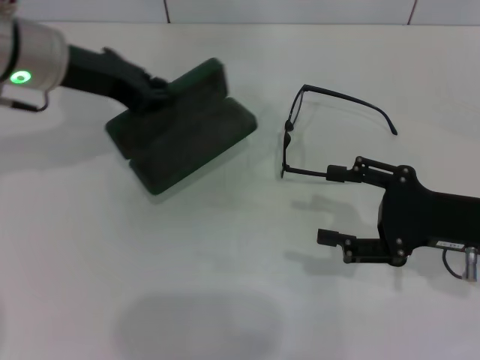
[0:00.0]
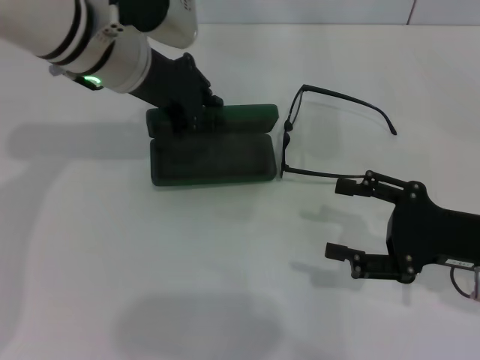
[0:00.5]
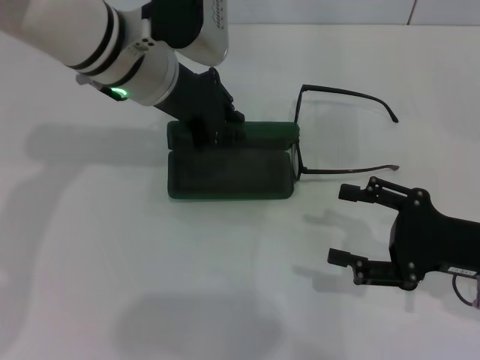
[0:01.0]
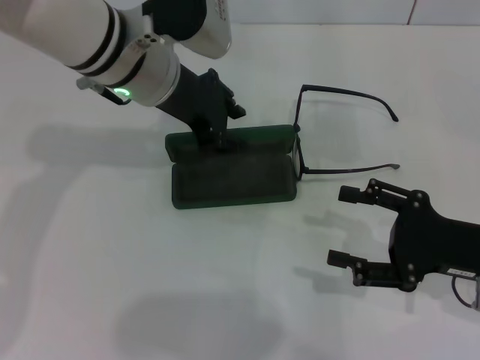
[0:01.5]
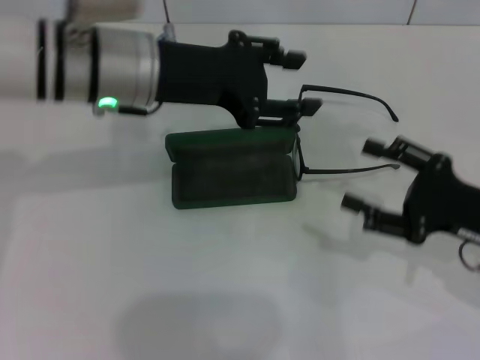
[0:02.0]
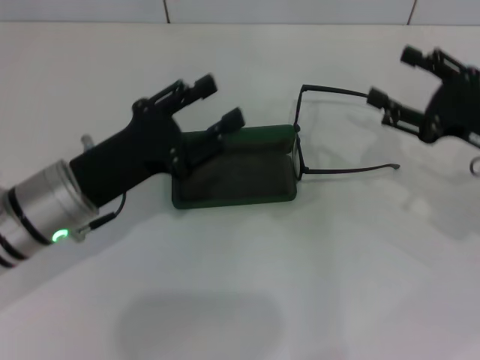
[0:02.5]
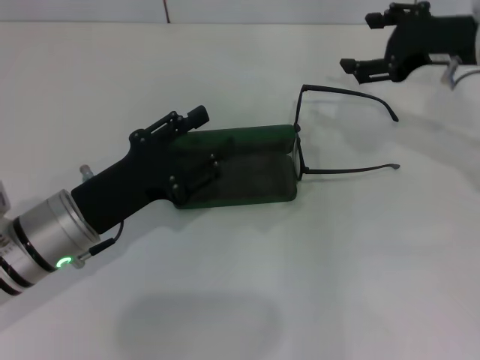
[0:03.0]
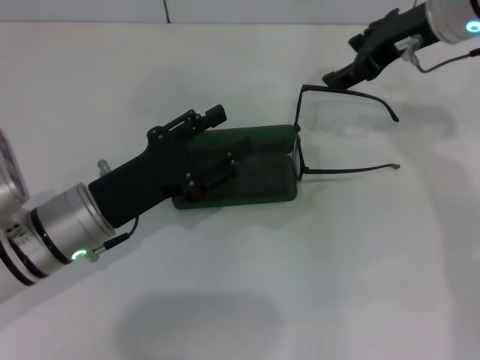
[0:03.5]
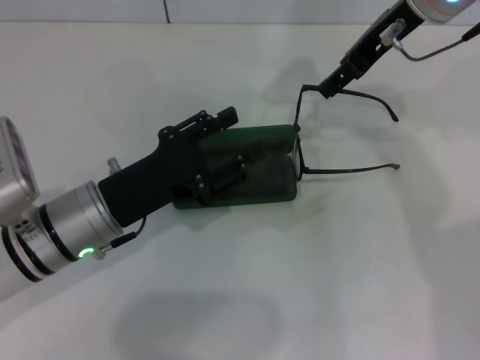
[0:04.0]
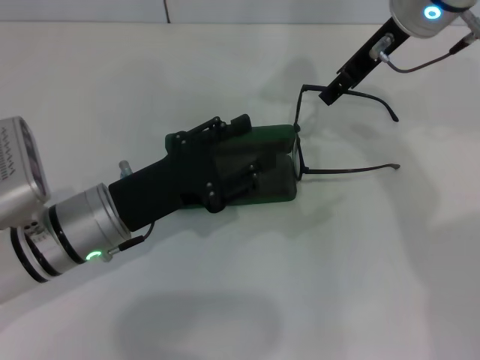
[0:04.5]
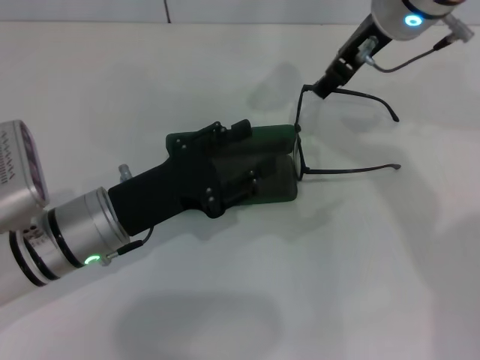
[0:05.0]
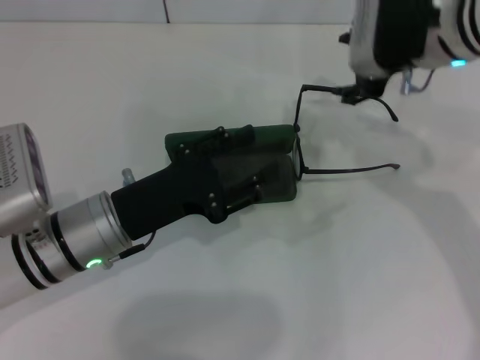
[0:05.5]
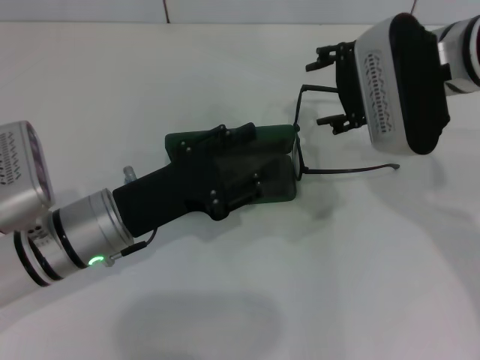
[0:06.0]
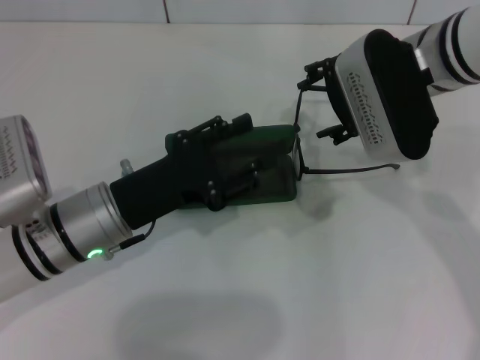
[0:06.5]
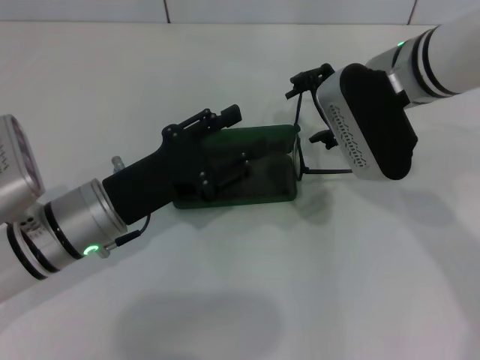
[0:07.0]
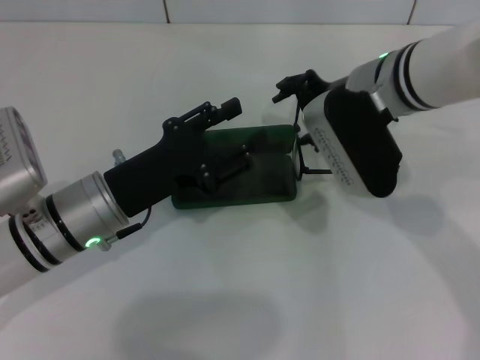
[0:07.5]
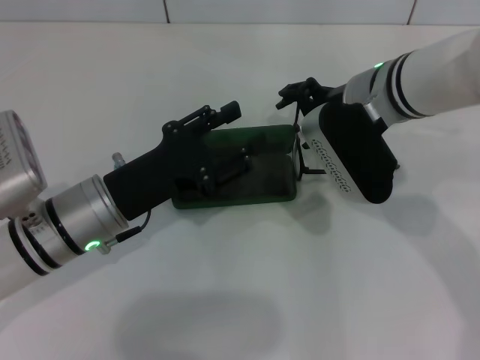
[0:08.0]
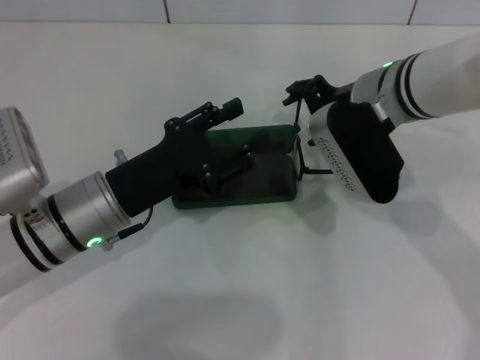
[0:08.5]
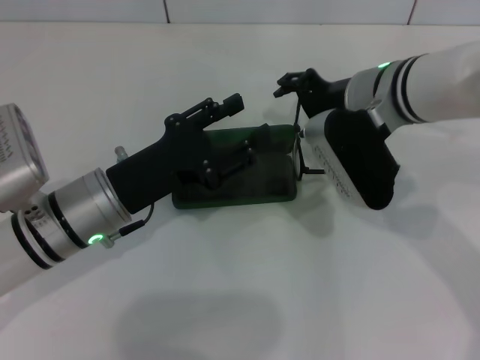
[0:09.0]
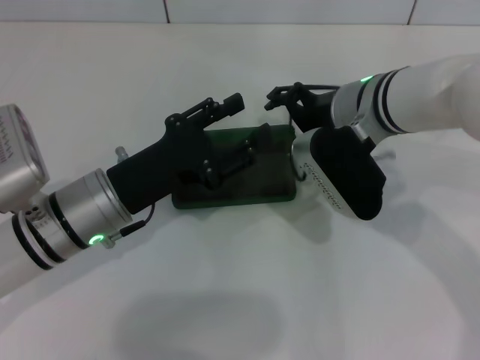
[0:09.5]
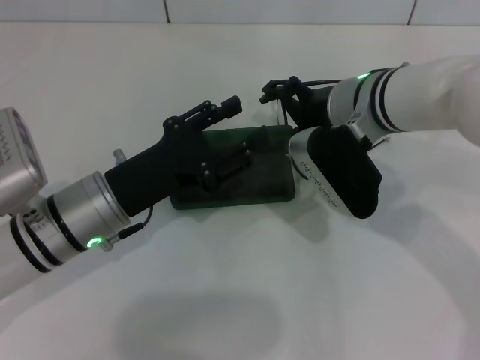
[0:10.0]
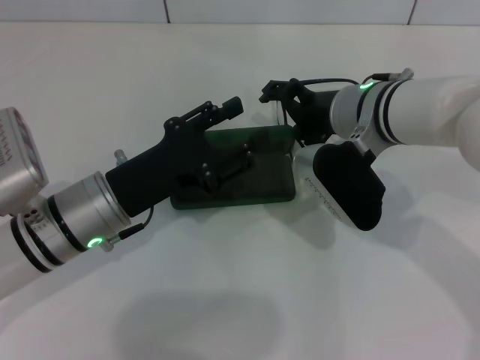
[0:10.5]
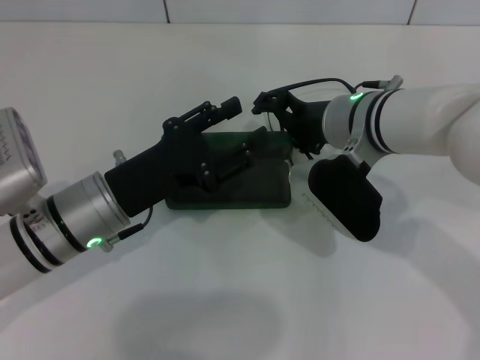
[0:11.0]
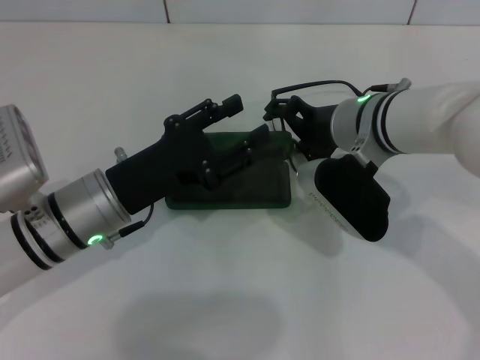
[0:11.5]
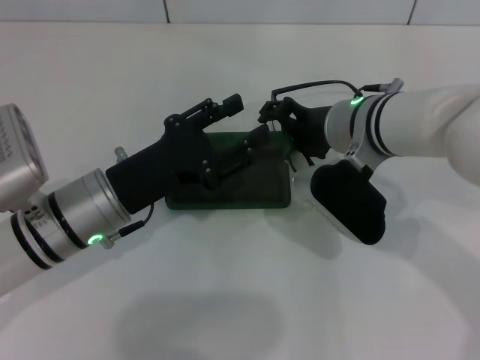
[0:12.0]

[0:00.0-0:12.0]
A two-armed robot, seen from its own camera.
Step, 0.0 to 1.0 s: Place the glasses case in the center of the table with your left hand.
0.0 to 2.0 s: The left gripper heads to the right, covering about 5 cm, and opens up.
2.0 to 4.0 s: The right gripper goes some 30 cm upward, forward and to the left, while the left gripper shifts roughly 15 cm downward and backward.
4.0 to 6.0 s: The right gripper moves downward and backward, some 10 cm.
6.0 to 8.0 s: The right gripper shifts roughly 5 cm downward.
8.0 to 12.0 s: The grippers move only a little.

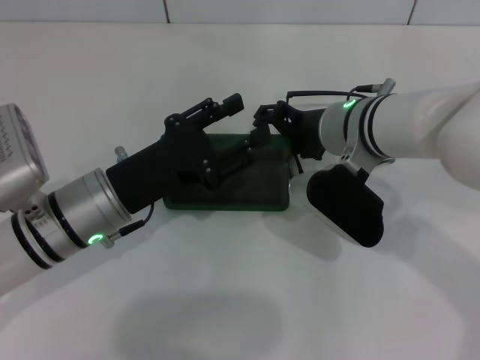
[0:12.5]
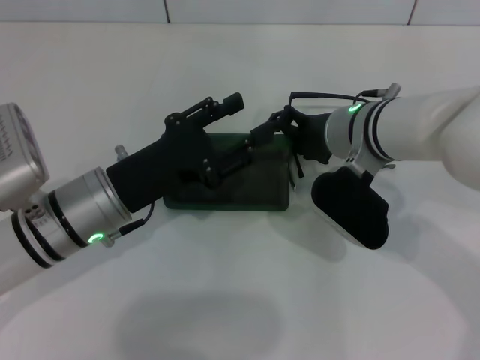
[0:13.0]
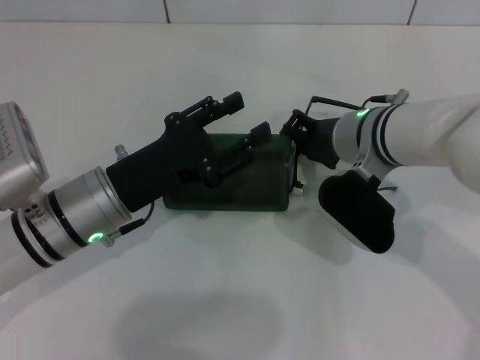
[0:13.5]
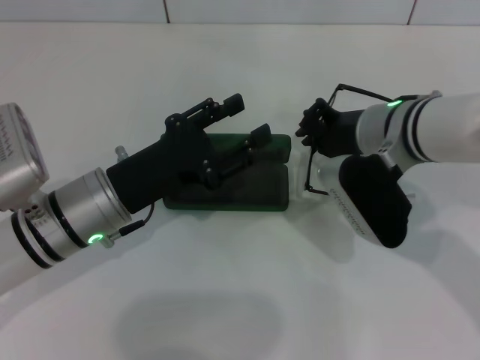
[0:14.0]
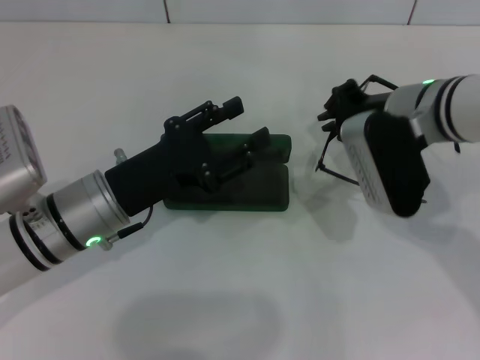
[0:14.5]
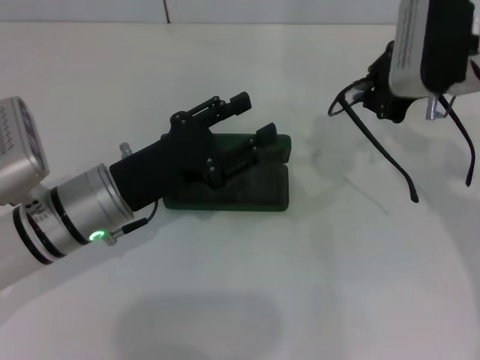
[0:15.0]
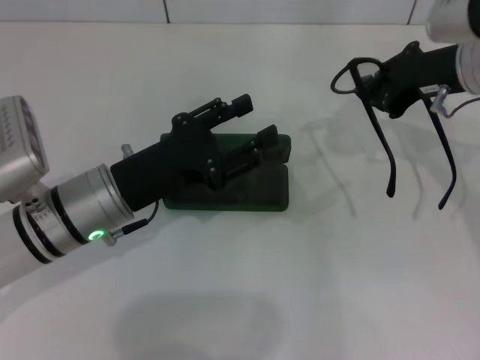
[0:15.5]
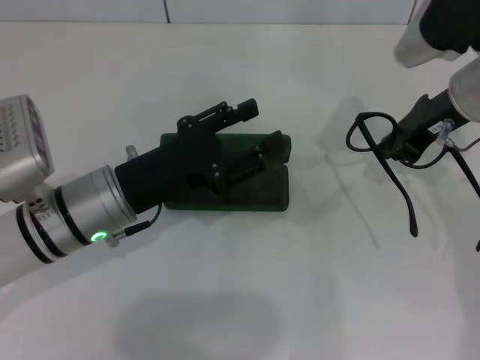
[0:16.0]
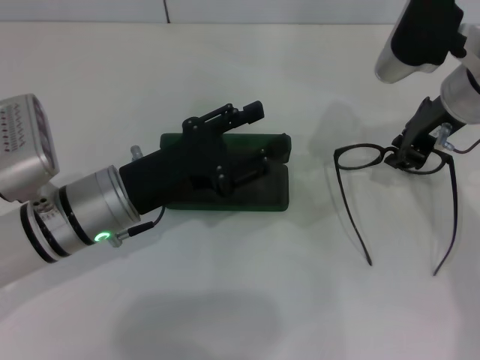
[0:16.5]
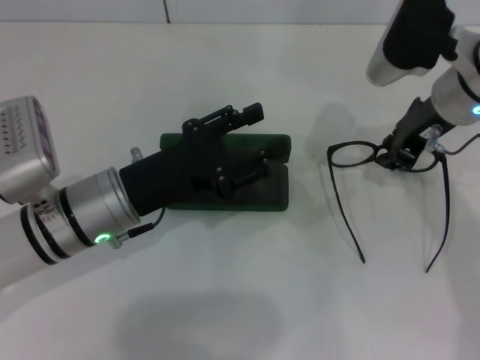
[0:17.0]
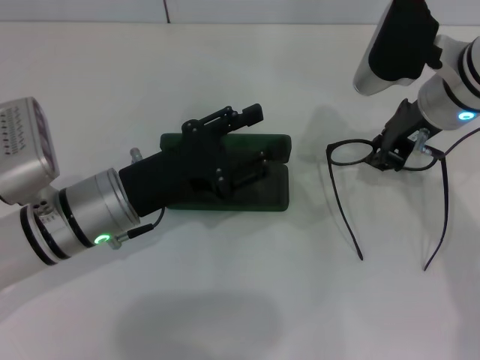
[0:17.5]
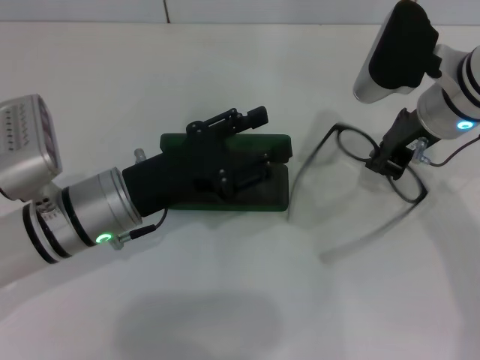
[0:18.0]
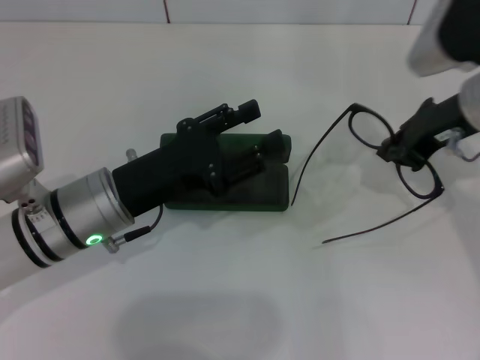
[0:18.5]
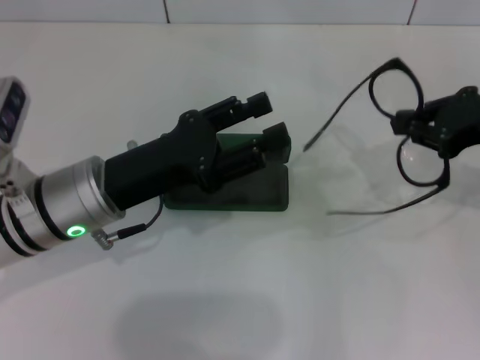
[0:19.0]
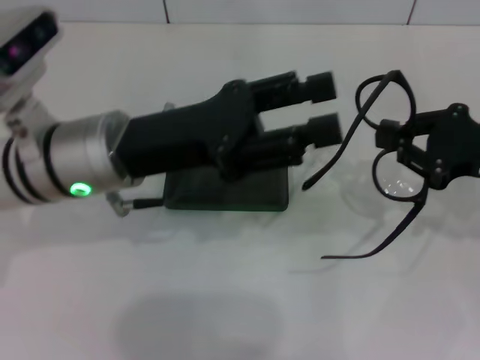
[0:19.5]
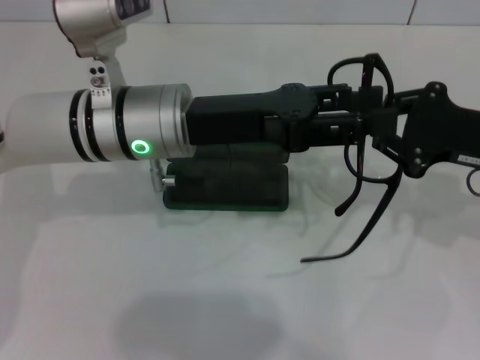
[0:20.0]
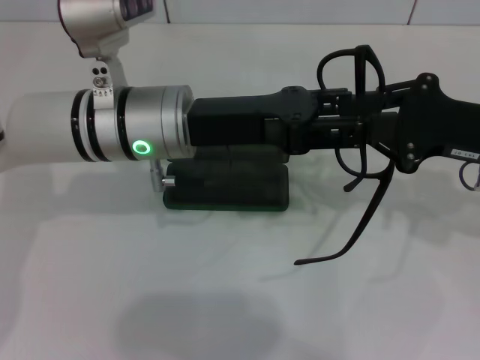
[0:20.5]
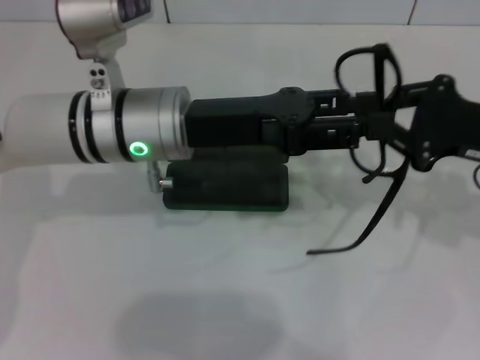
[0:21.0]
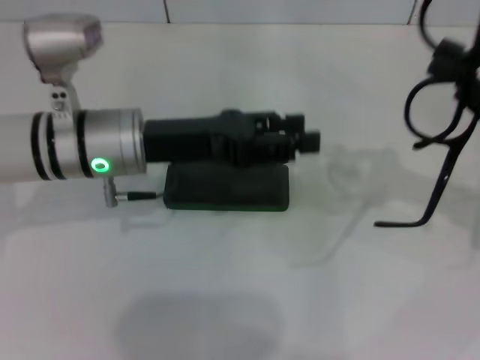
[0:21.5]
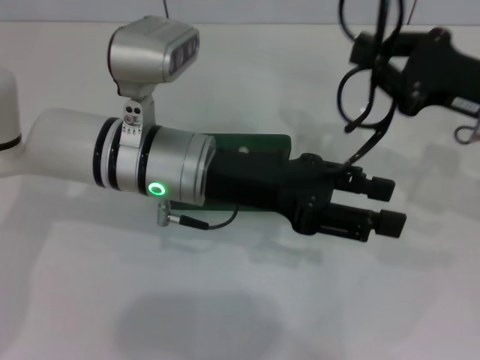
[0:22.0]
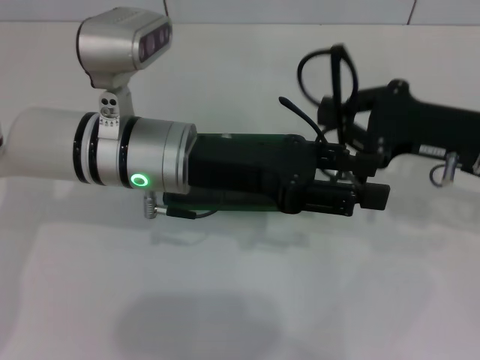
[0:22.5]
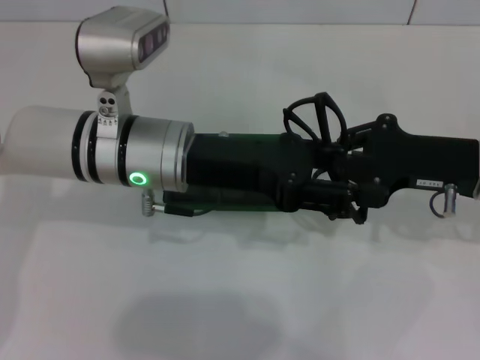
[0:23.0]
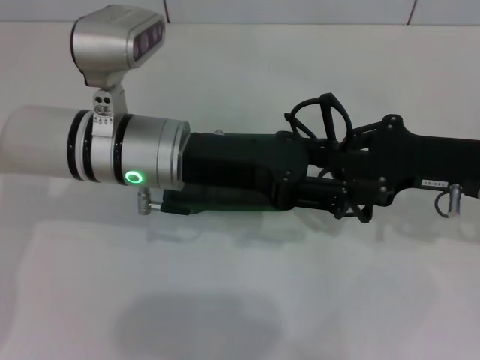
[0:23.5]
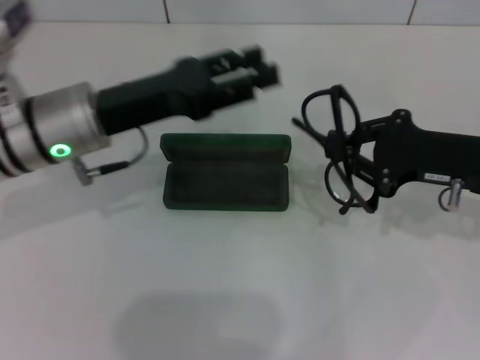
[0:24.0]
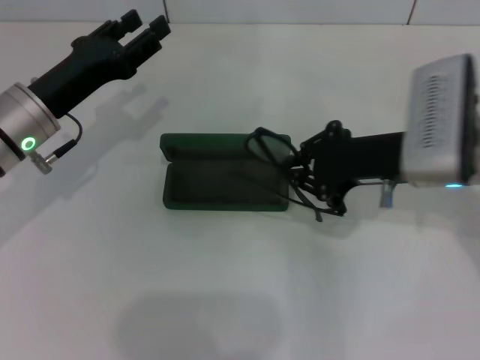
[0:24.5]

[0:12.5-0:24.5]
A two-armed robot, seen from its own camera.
Step, 12.5 to 18.0 s: Grab the eyeglass frame with your right hand.
Step, 18.5 to 23.0 s: Lift the glasses with your right hand.
12.5 to 14.5 s: The right gripper is displaced to the right by approximately 5 cm, and closes up.
14.5 to 16.5 s: The right gripper changes place by roughly 5 cm.
16.5 to 18.5 s: The grippers move only a little.
18.5 to 20.5 s: The right gripper heads backward, covering approximately 5 cm. The left gripper travels upward, to the right and forward by some 10 cm.
22.5 to 24.5 s: The right gripper moves to the left, approximately 5 cm. Meanwhile the left gripper moves to the left, approximately 15 cm.

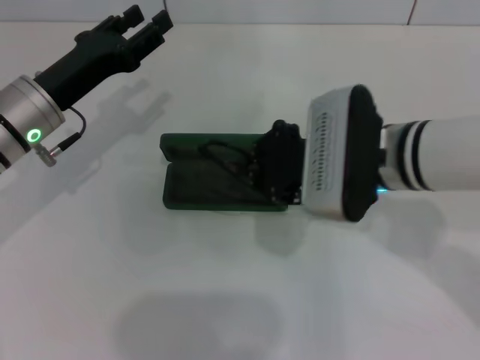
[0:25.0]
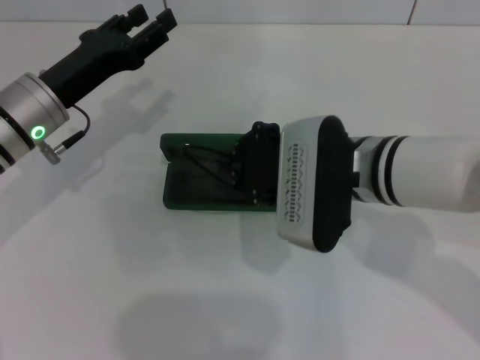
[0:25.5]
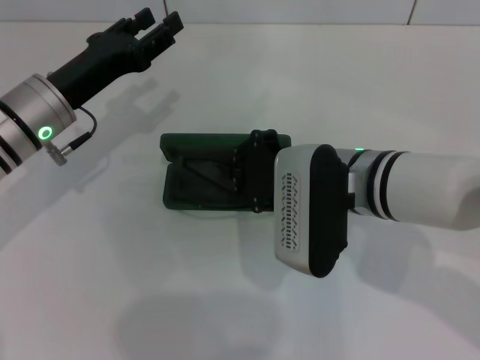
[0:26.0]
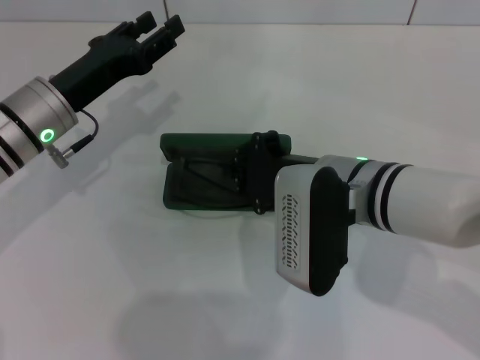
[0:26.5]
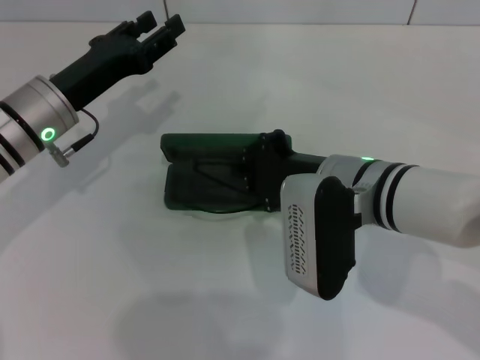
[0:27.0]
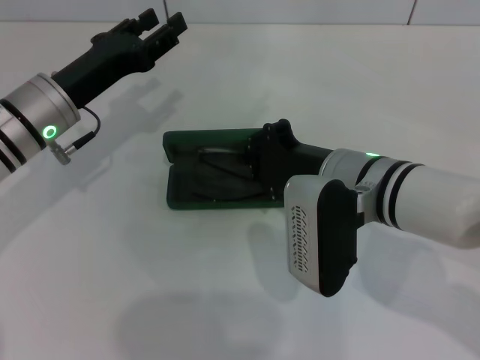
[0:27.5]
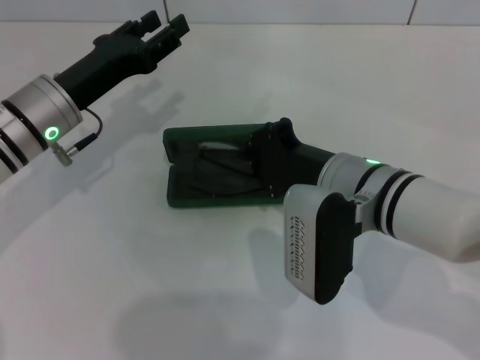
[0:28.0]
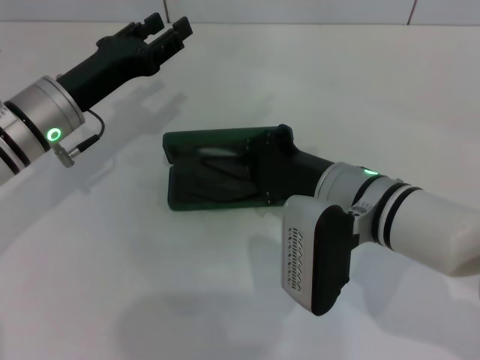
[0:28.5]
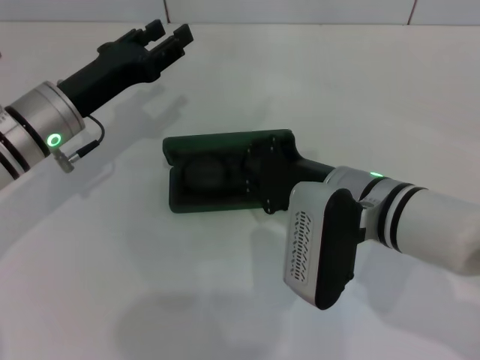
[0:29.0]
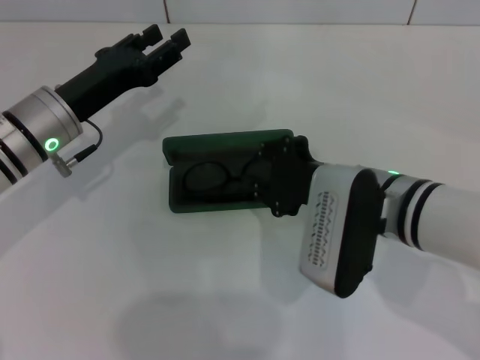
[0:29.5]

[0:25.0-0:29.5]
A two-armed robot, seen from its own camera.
Step, 25.0 to 29.0 s: Put the glasses into the case with your right hand.
27.0 to 29.5 s: There are only small adjustments of the grippers.
